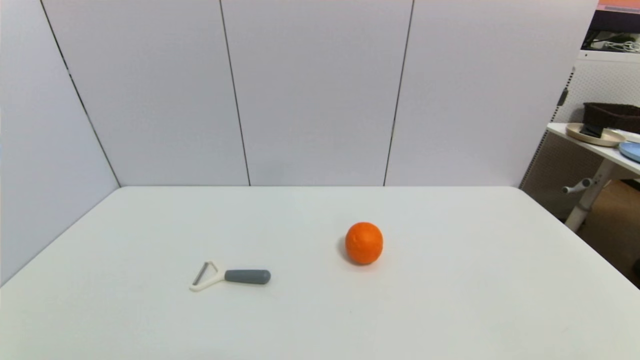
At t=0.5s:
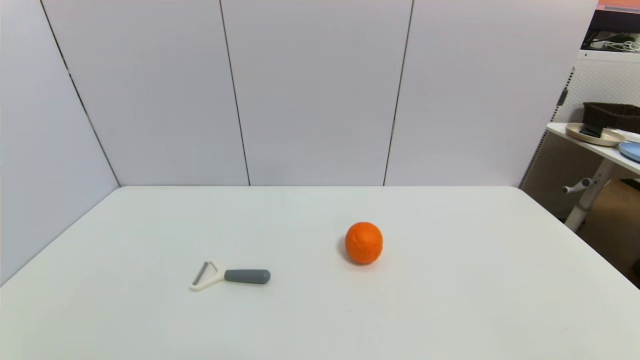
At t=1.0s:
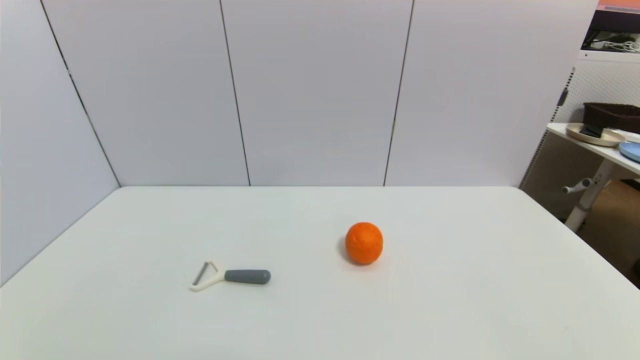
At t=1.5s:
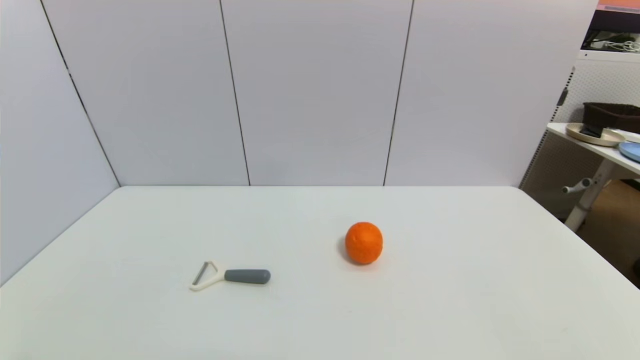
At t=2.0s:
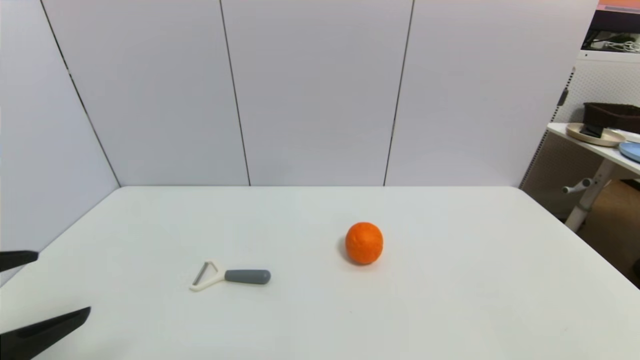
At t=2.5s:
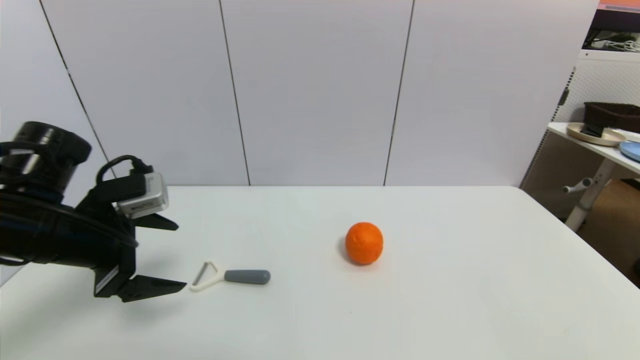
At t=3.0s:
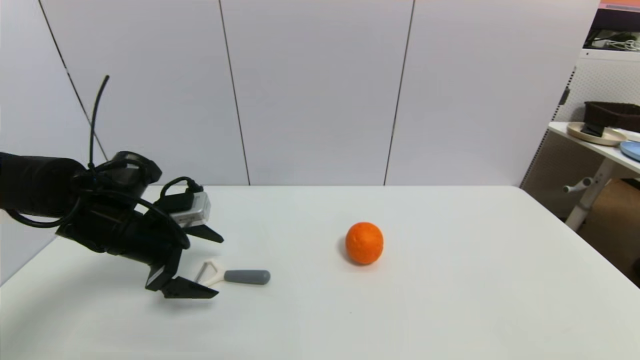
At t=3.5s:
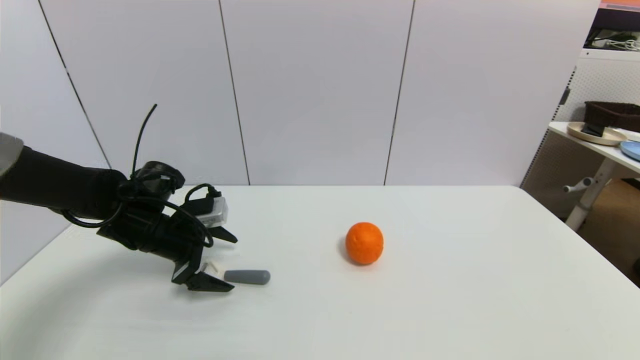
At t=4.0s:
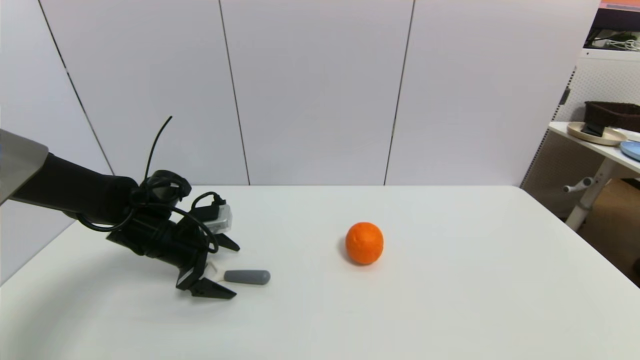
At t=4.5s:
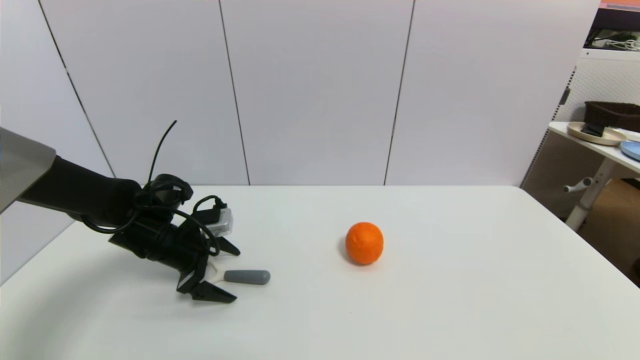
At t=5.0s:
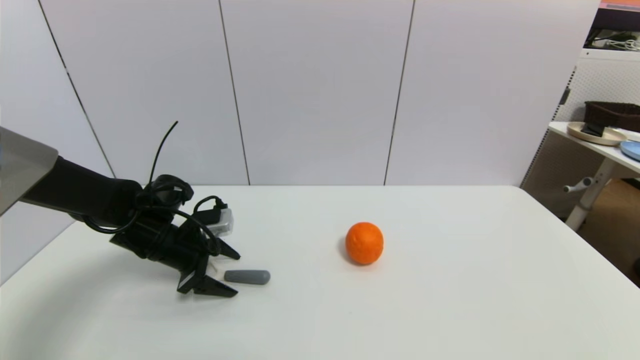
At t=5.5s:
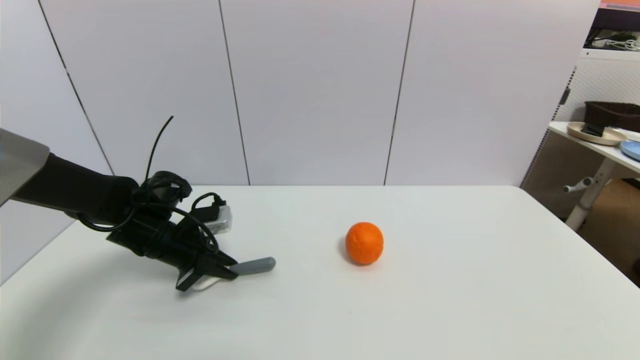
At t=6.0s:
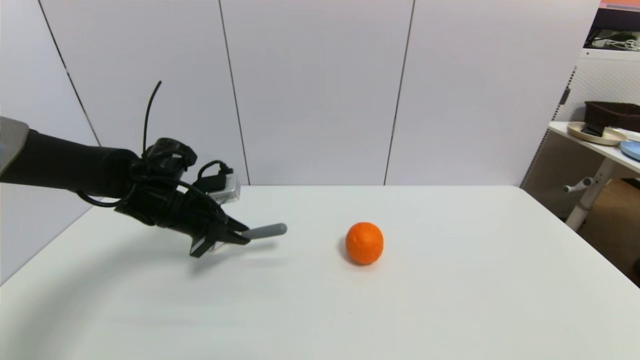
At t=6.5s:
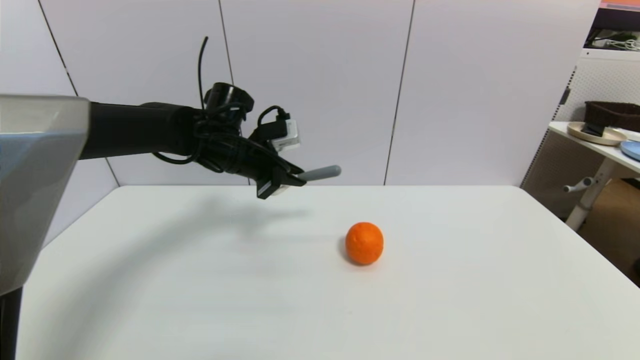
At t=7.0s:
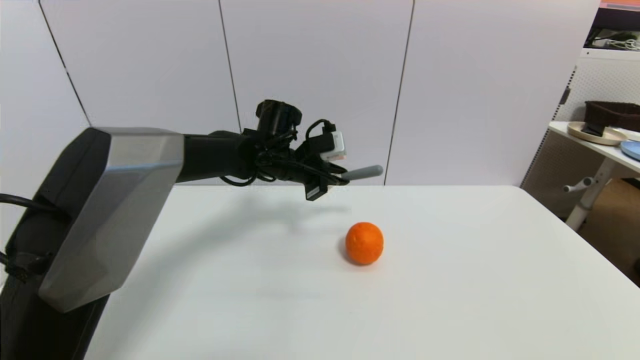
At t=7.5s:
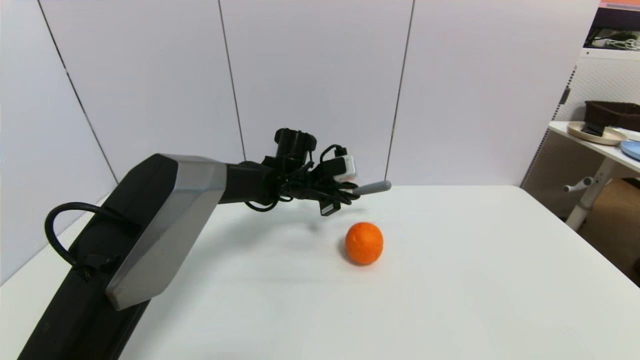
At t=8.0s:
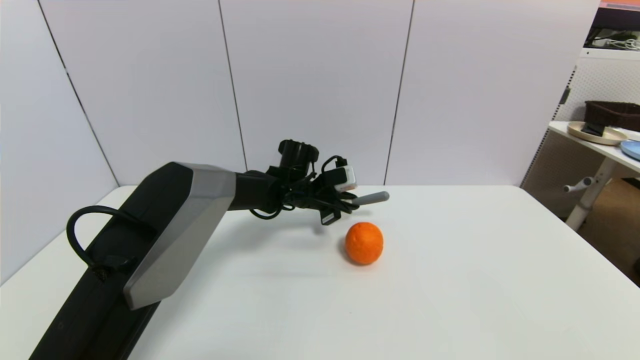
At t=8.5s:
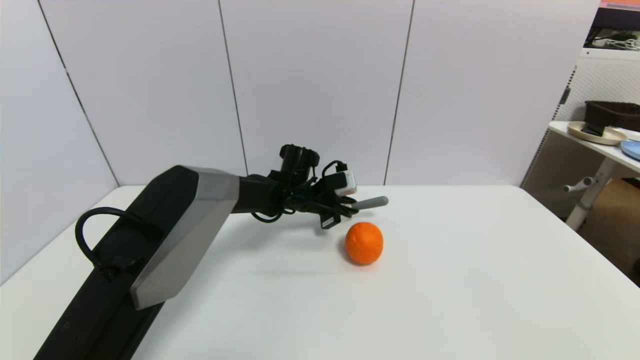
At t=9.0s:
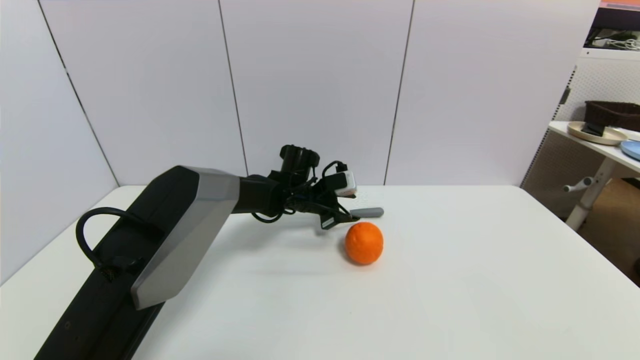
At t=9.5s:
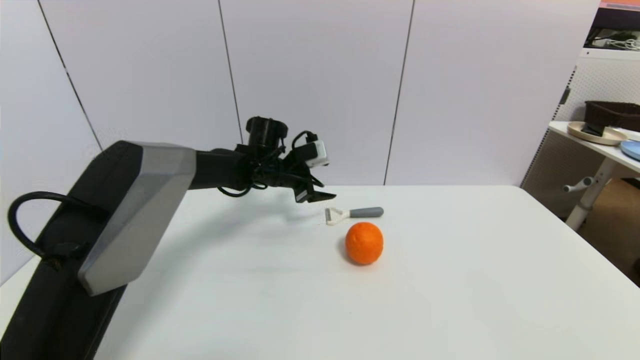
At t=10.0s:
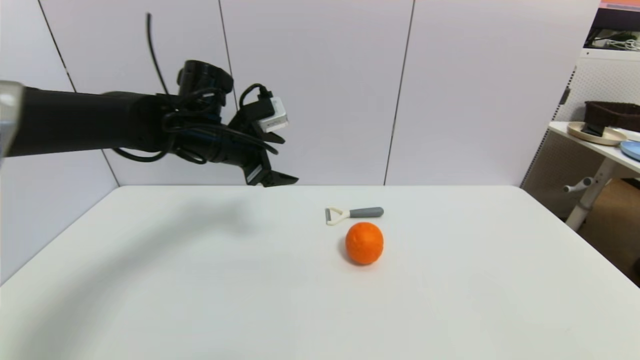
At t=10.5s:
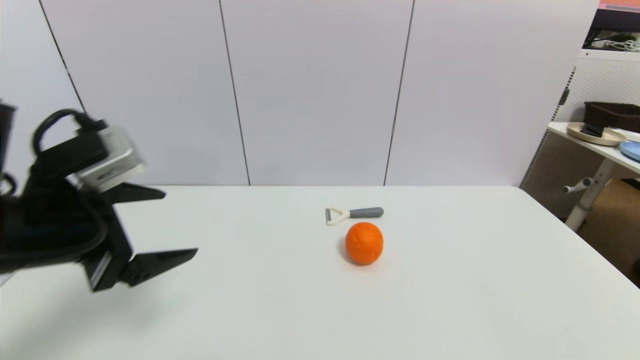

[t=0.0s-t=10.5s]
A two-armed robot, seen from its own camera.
Step, t=2.0s to t=5.5s: Grasp the peeler with left gripper.
Step, t=6.0s to t=9.0s: Place the peeler on the table with left gripper.
t=0.0s to t=2.0s: The left gripper shifts approximately 20 cm upward and forward.
t=2.0s to t=4.0s: The left gripper shifts about 30 cm forward and downward.
t=4.0s to t=6.5s: The left gripper moves to the right, upward and forward, approximately 20 cm, and closes.
t=6.5s to t=8.5s: The left gripper goes roughly 15 cm downward and to the right.
t=8.5s to t=10.5s: The left gripper is displaced backward, to the left and upward by roughly 40 cm, and opens up.

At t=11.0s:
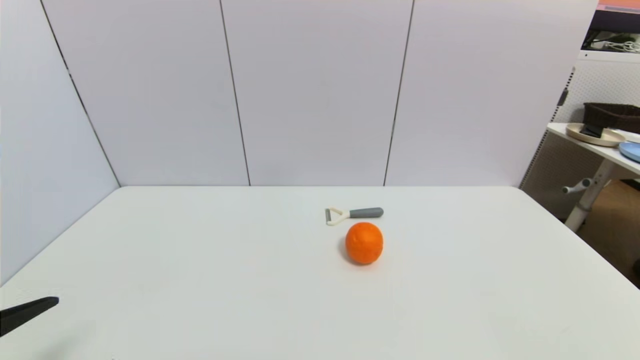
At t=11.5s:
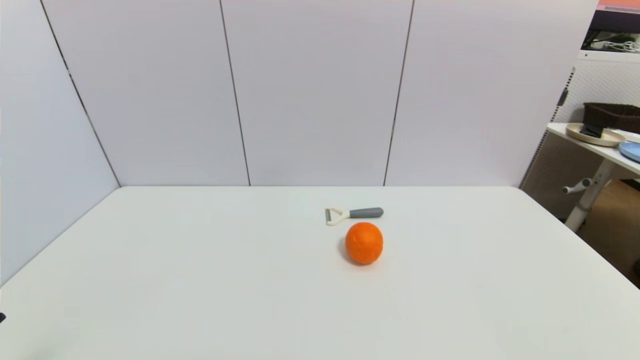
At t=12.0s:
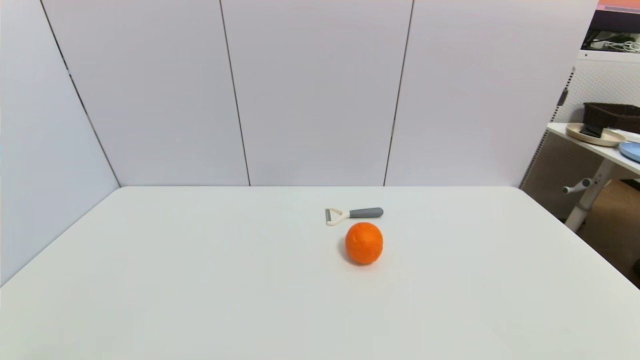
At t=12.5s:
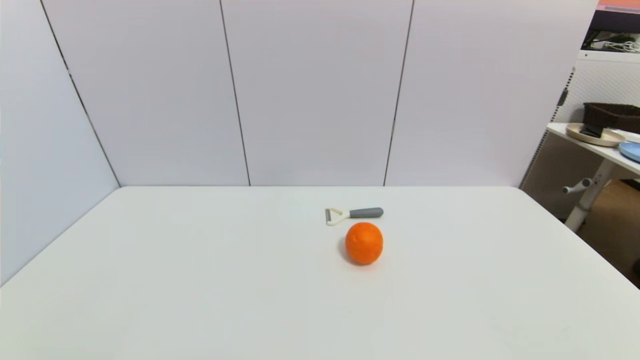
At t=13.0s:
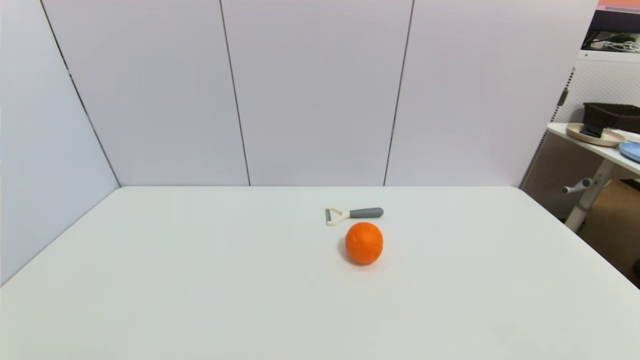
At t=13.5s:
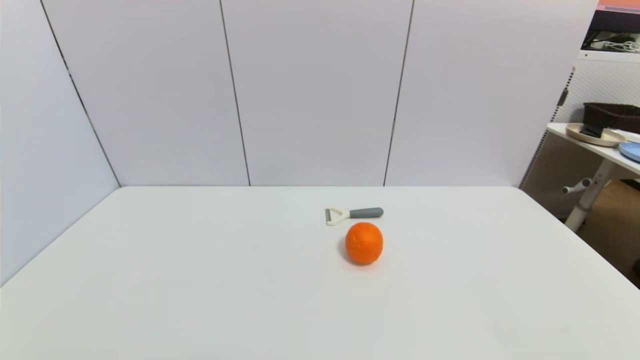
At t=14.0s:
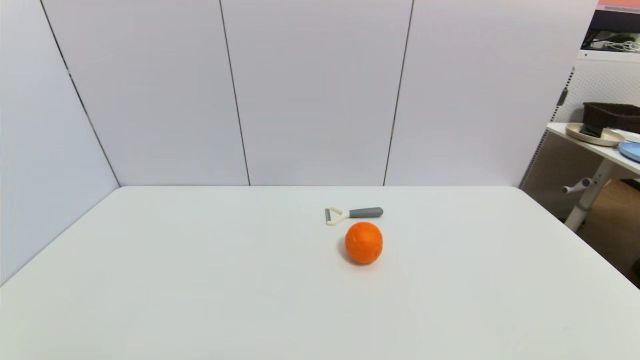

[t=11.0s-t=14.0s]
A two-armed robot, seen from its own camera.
t=12.5s to t=14.0s: The two grippers keep their place.
